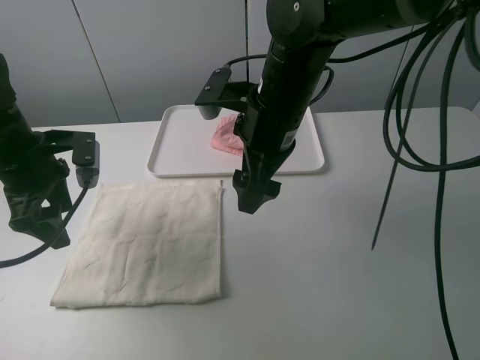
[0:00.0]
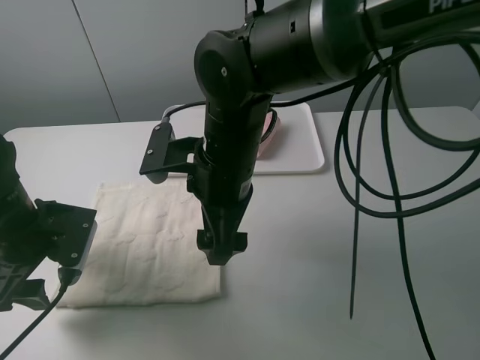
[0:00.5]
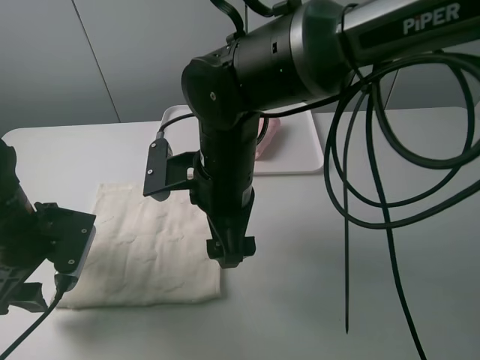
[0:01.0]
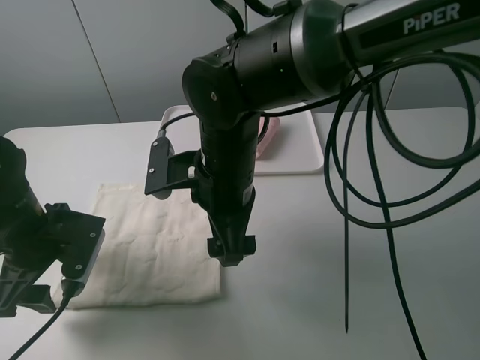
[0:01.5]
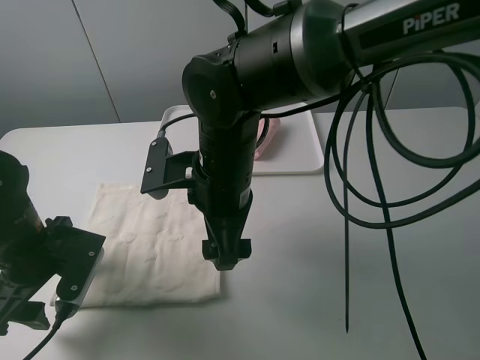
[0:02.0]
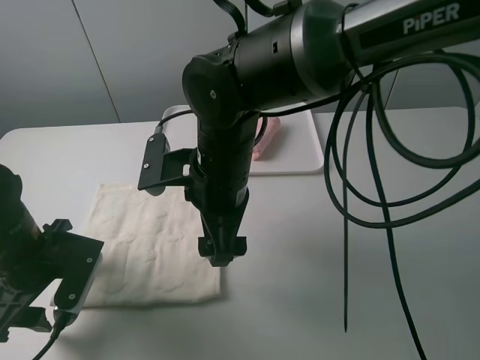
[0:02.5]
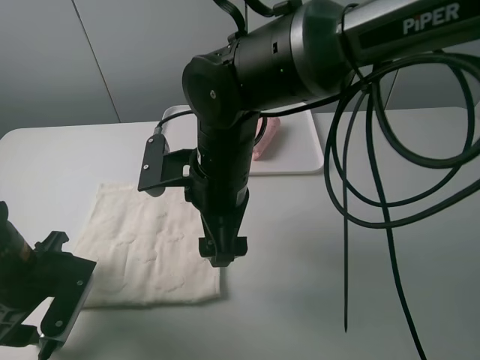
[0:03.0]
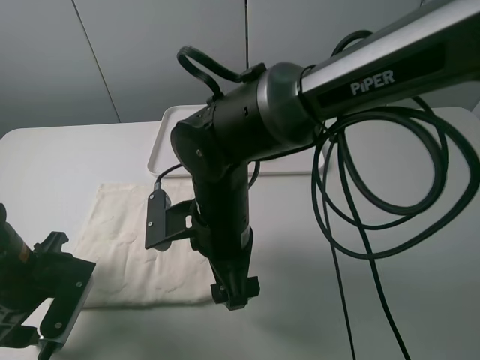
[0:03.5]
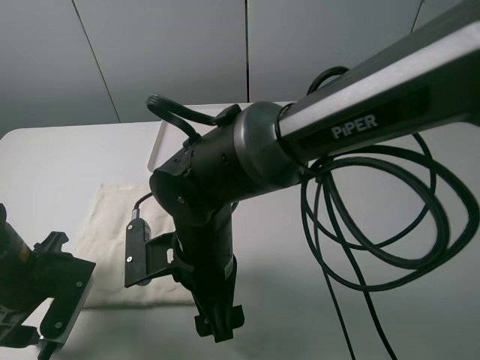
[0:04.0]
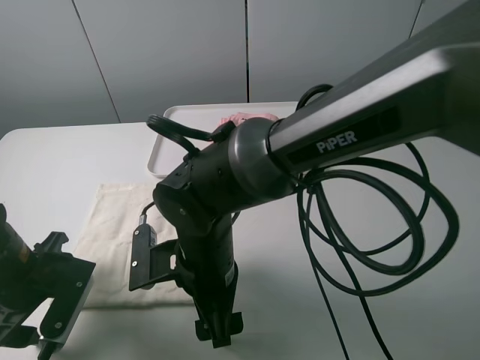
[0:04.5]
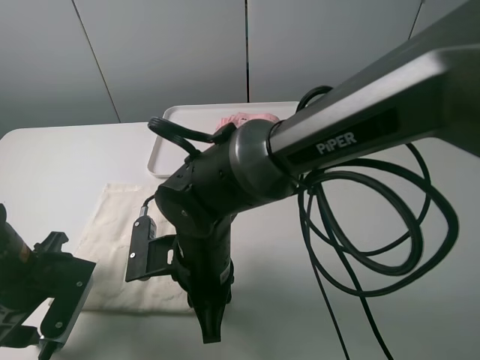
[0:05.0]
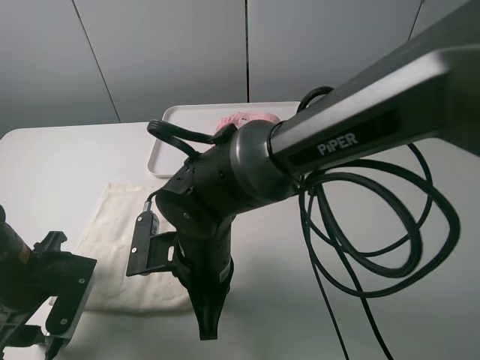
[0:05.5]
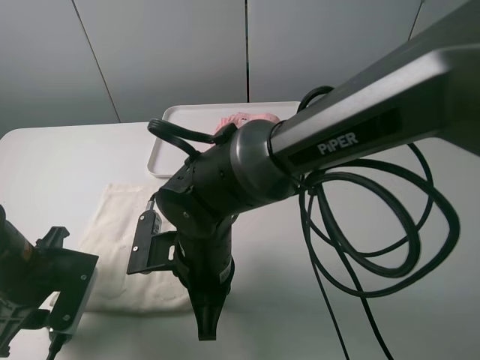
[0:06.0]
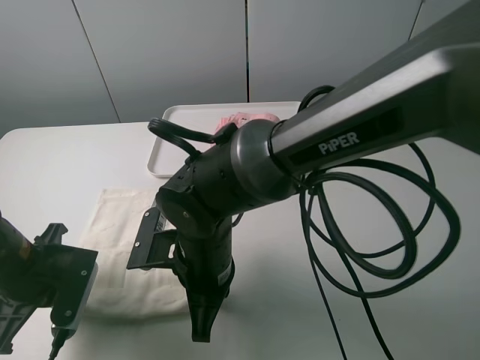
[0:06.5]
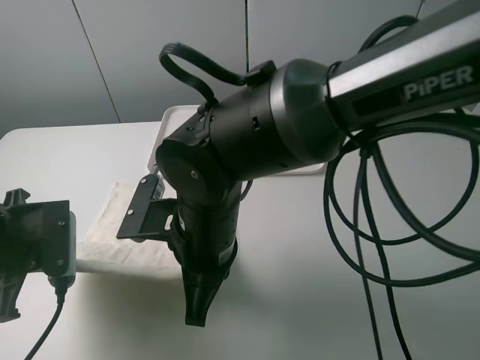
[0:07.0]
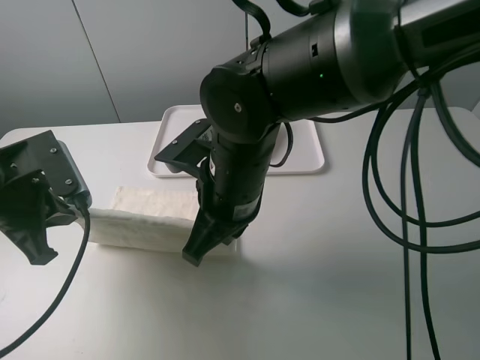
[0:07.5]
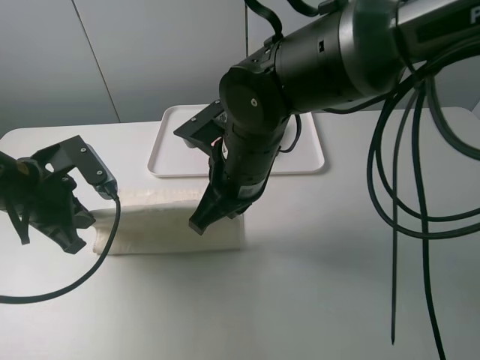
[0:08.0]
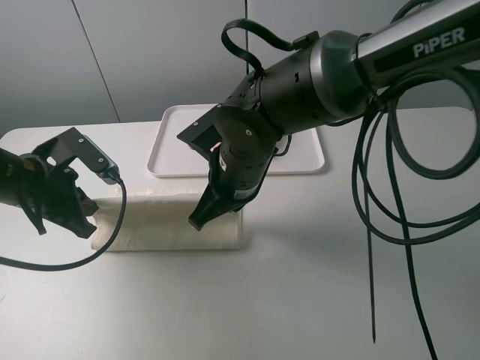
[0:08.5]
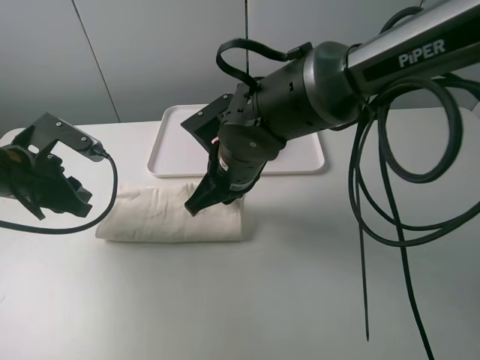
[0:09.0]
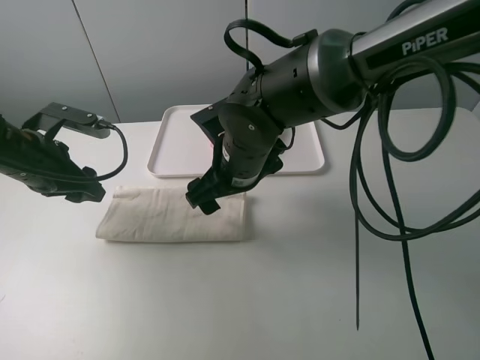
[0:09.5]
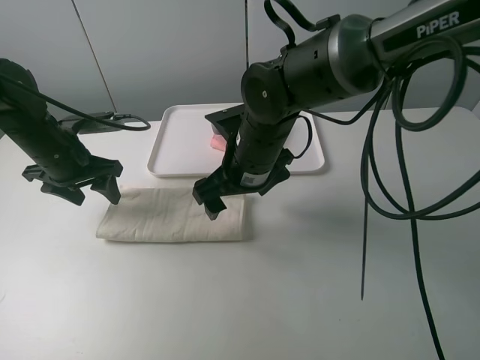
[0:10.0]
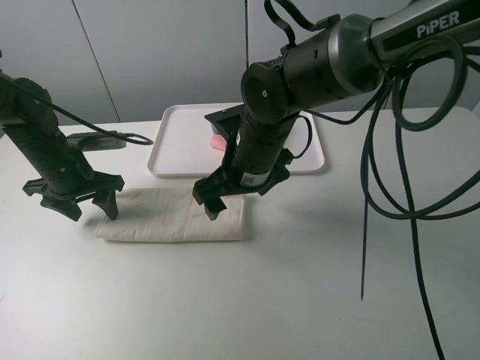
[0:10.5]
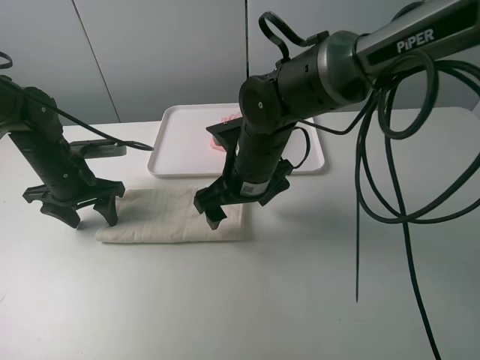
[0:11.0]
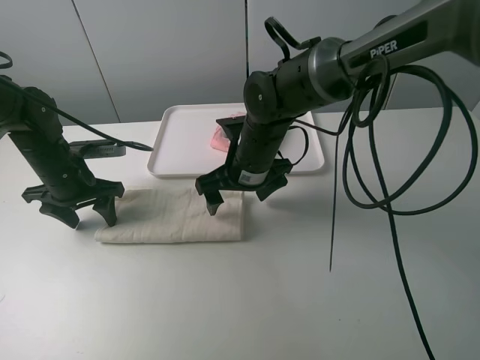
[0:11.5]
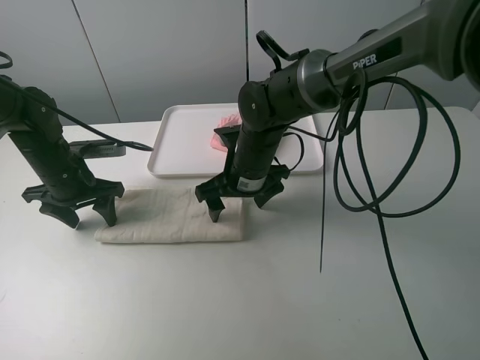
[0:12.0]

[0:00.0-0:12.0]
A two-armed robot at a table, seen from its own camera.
Task of the whole recording: fold one of the towels by two grippers and place it on the tray,then fold another towel by two grippers and place it on the folded towel.
Step, 0:00.0 to 0:06.5: Grasp the white towel with the left gripper.
Step, 0:07.0 to 0:09.0: Fold the white towel upwards with the left gripper.
Step, 0:09.5 to 0:10.5: Press the white towel with the left gripper.
0:00.0 to 0:02.0: The left gripper heads backward and downward, covering about 10 cm, while the right gripper shifts roughly 10 cm to the left and backward.
0:02.0 to 0:04.0: The right gripper heads downward and backward, covering roughly 10 cm.
0:04.0 to 0:06.0: The right gripper closes. Meanwhile the left gripper closes.
0:06.0 to 0:08.0: The right gripper heads upward and forward, covering about 10 cm, while the left gripper moves forward and upward, approximately 10 cm, and closes its fingers.
0:08.0 to 0:10.0: The left gripper goes about 10 cm forward, and opens, while the right gripper moves about 5 cm, and opens up.
0:10.0 to 0:12.0: The right gripper shifts approximately 5 cm downward.

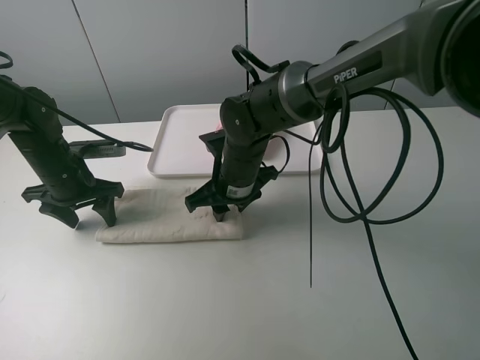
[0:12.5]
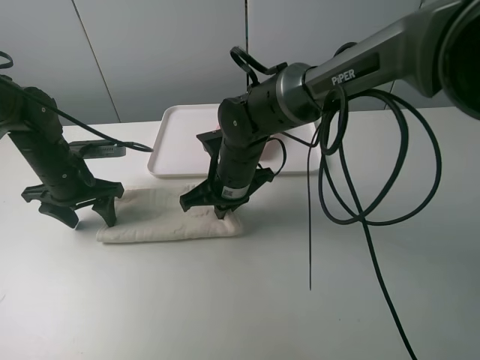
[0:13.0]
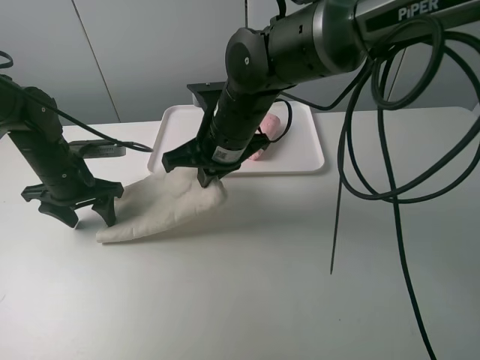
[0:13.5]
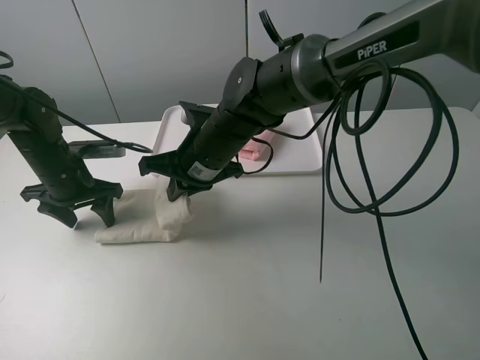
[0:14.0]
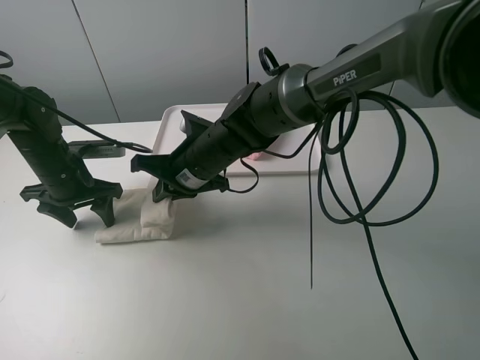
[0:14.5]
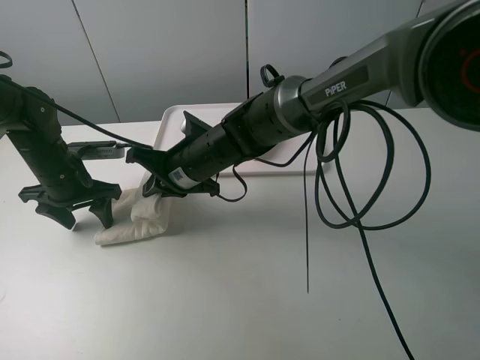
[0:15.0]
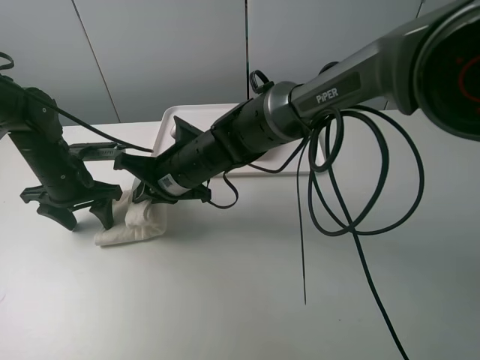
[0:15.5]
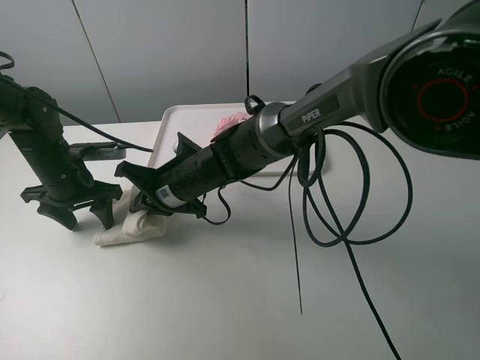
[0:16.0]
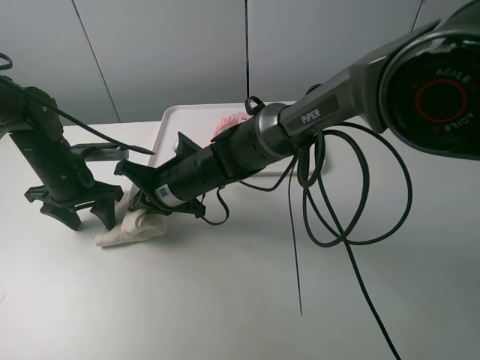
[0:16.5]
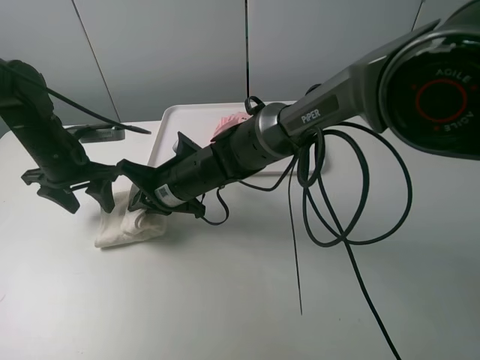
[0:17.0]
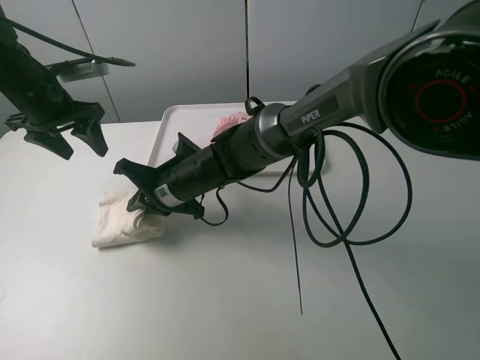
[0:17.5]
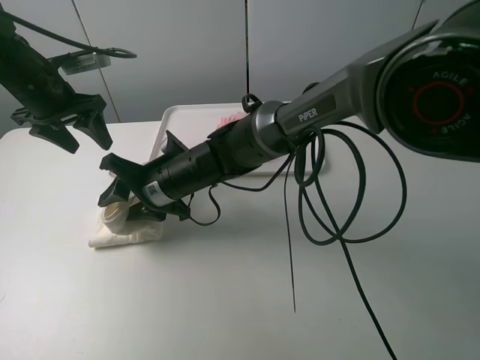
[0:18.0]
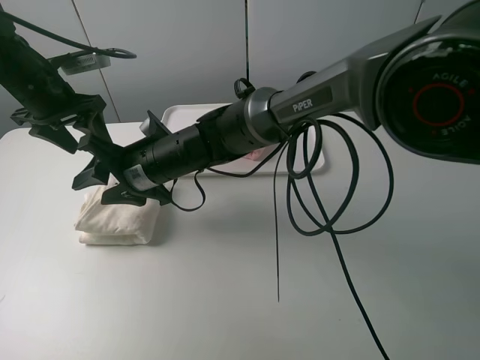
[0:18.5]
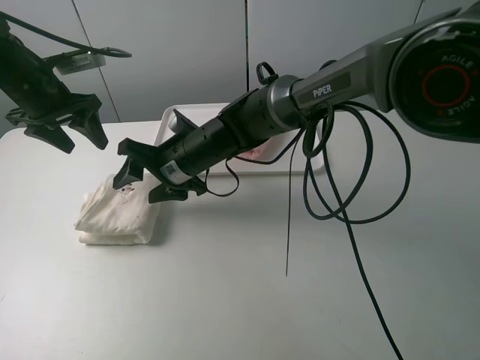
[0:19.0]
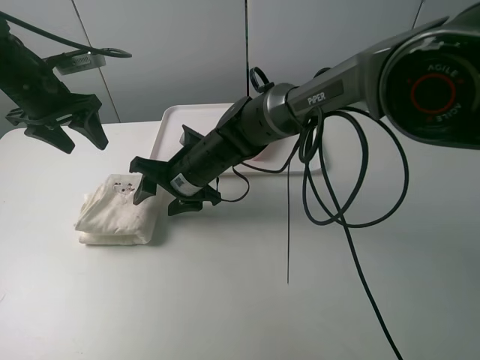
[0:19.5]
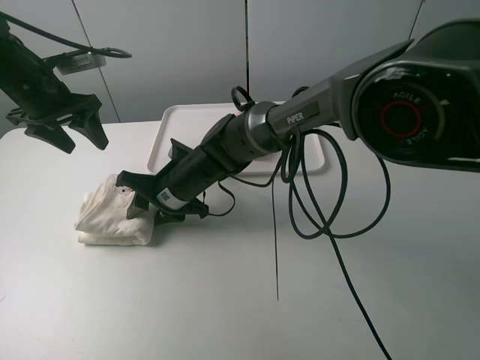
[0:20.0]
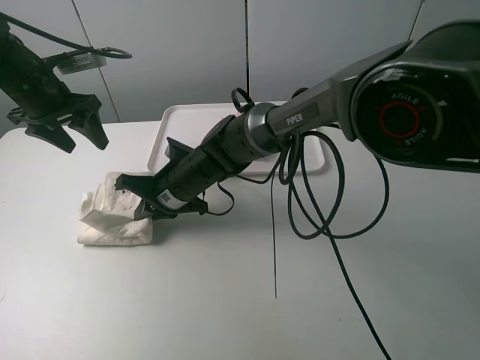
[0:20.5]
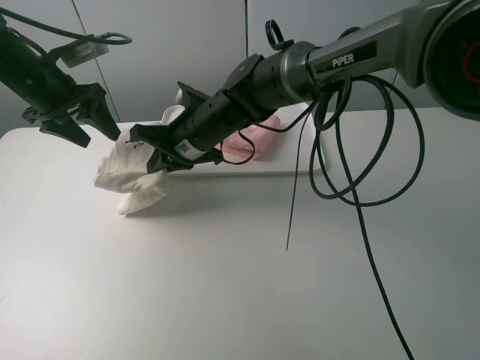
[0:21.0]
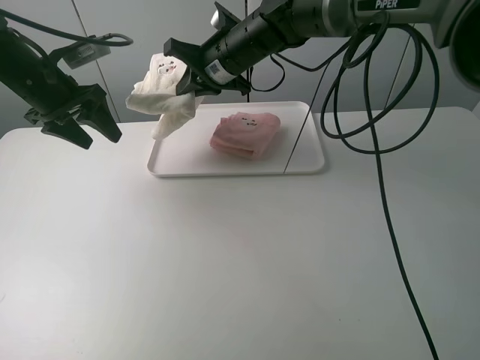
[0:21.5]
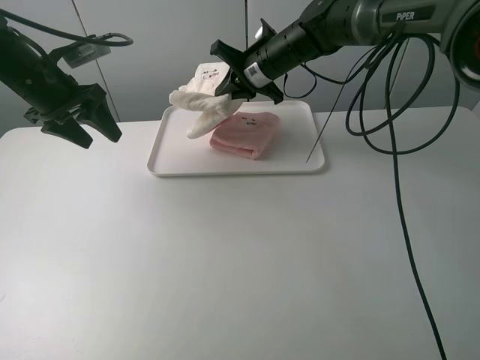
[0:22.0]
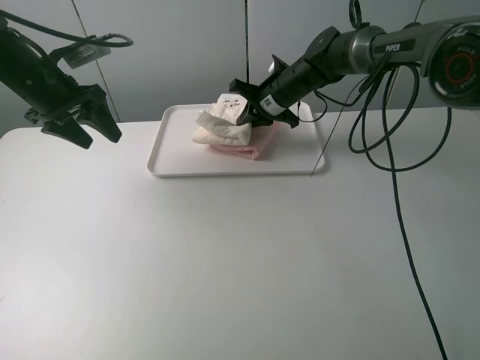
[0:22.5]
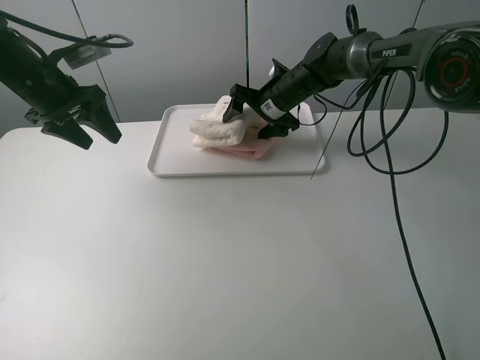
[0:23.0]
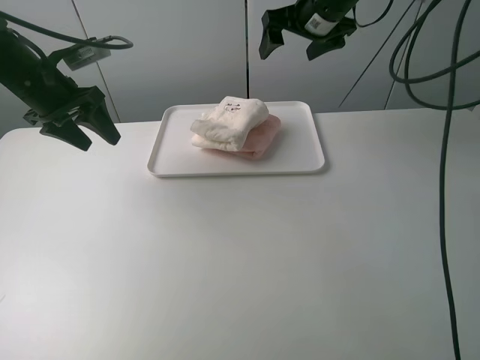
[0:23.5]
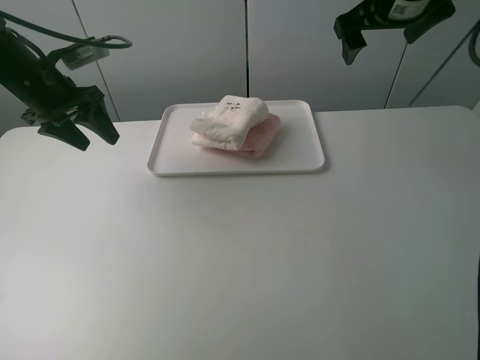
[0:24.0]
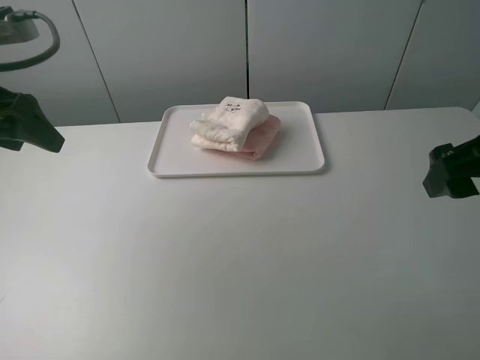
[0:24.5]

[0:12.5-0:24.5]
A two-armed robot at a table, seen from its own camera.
Task of the whole recording: fold one of the towels by two grippers and place it on the tray,then fold another towel by two grippers and place it on the folded towel.
Step, 0:13.0 to 0:18.5: Fold the white towel from right to left with right gripper.
Step, 0:19.0 to 0:20.0: Grasp the white towel with the right gripper.
Step, 0:20.5 to 0:23.0: Place the white towel on the pink towel with the right gripper.
0:12.5 to 0:14.5: The right gripper goes upward and returns, about 10 cm each way.
0:16.5 to 0:18.5: The right gripper opens its fingers. Meanwhile the left gripper goes approximately 10 cm upward.
0:18.5 to 0:20.5: The right gripper ends up roughly 5 cm from where it was, and closes up.
0:20.5 to 0:22.5: The right gripper shifts about 25 cm forward and to the right.
0:22.5 to 0:24.5: The left gripper moves backward and upward, about 15 cm; the right gripper heads backward, to the right and upward, covering roughly 40 cm, and opens its fingers.

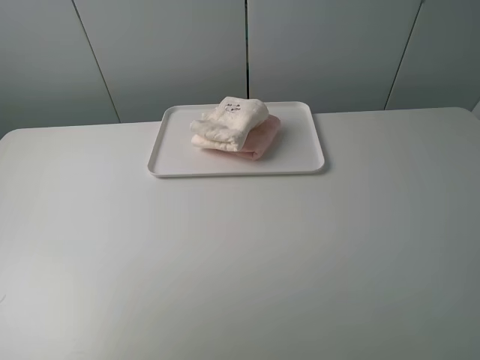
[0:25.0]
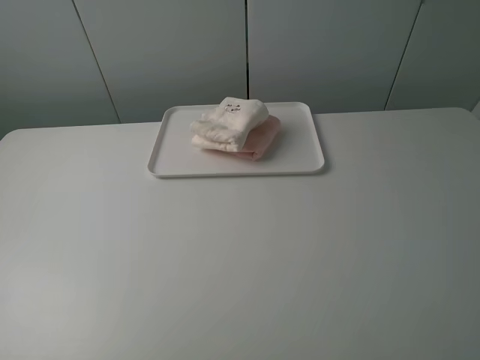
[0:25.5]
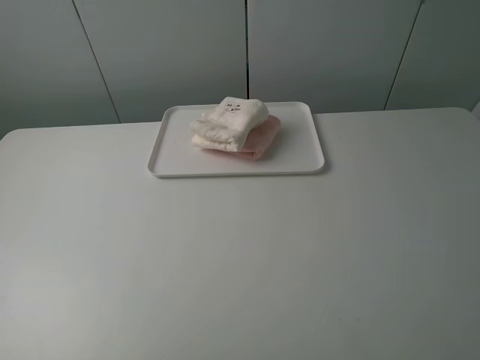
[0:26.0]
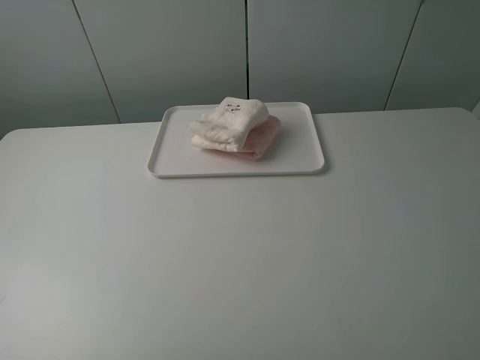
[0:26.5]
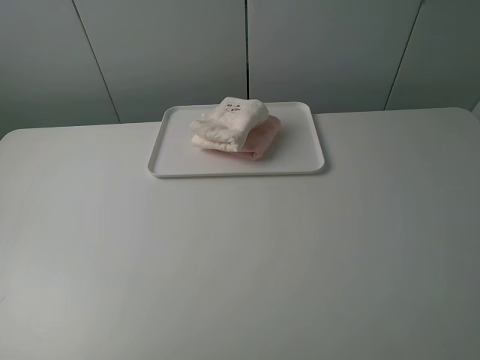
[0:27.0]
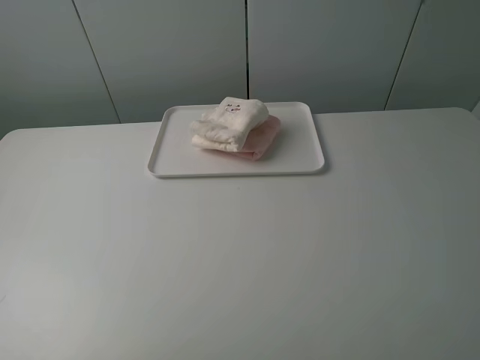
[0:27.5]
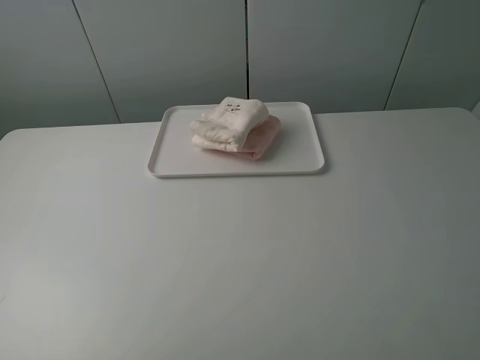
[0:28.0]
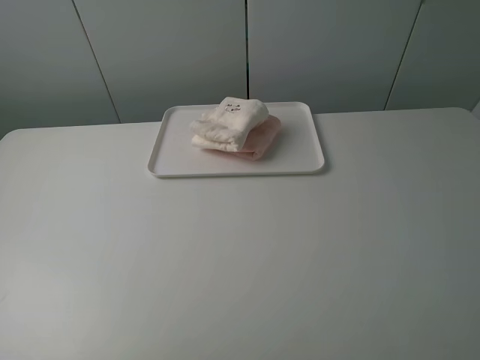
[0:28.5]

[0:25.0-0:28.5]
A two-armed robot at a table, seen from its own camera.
Task of the whole recording: fold one of the towels by two grippers and place it on the tray,then fold another towel by two grippers and place it on the folded towel.
0:25.0 to 0:27.0: The right gripper travels backward by approximately 5 cm, while the left gripper heads backward, covering about 10 cm.
0:27.0 to 0:28.5: Both grippers stay put.
